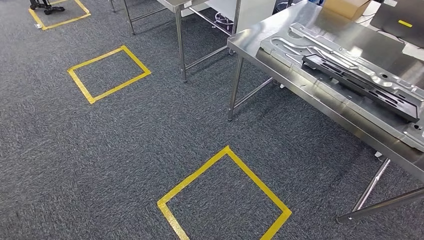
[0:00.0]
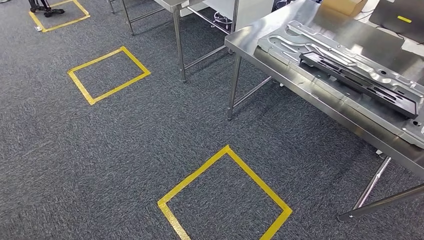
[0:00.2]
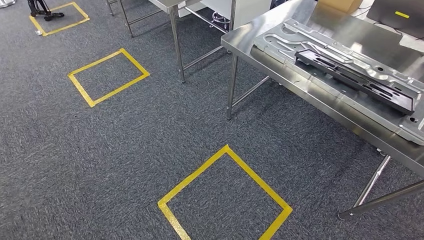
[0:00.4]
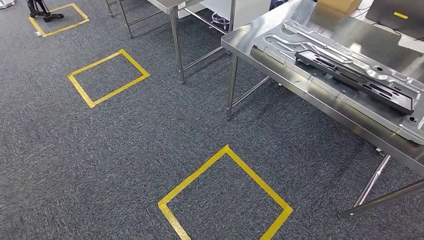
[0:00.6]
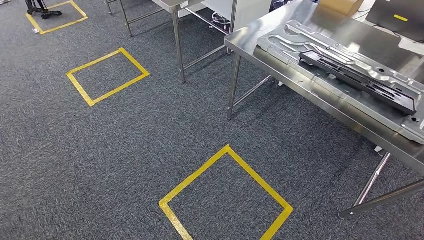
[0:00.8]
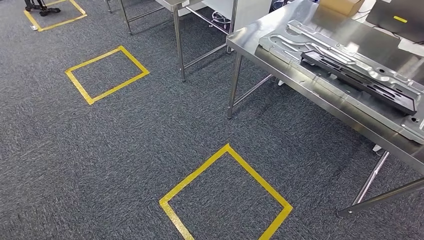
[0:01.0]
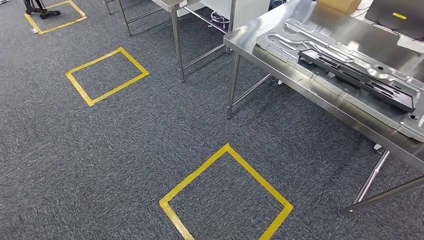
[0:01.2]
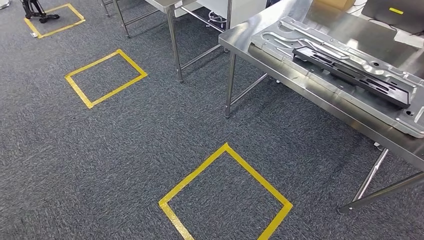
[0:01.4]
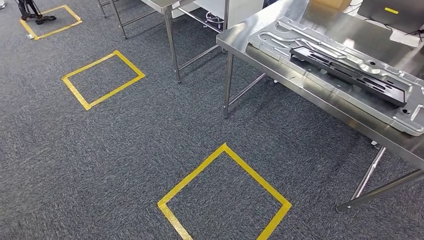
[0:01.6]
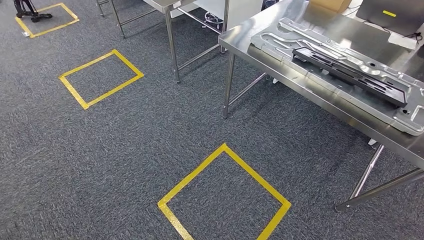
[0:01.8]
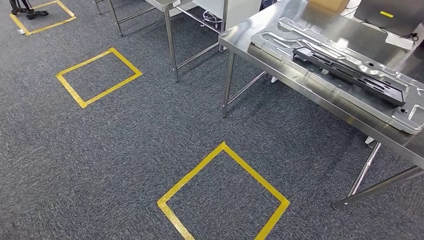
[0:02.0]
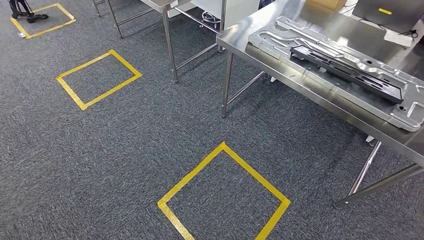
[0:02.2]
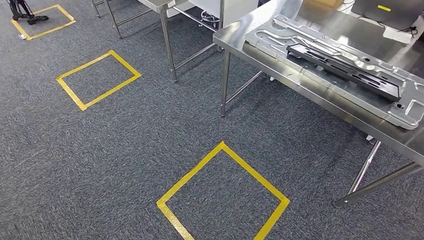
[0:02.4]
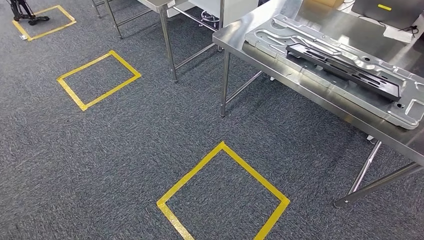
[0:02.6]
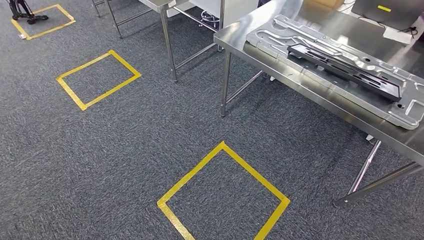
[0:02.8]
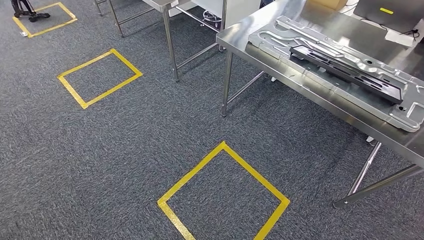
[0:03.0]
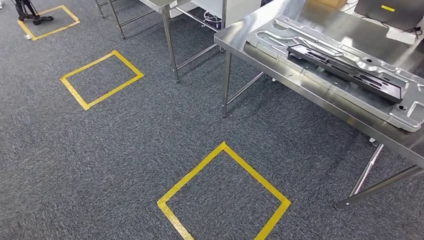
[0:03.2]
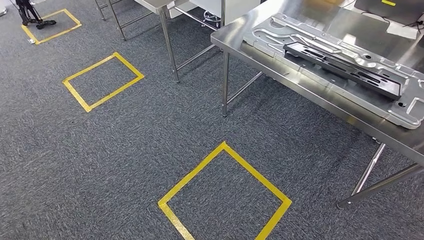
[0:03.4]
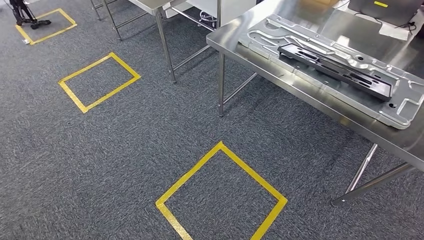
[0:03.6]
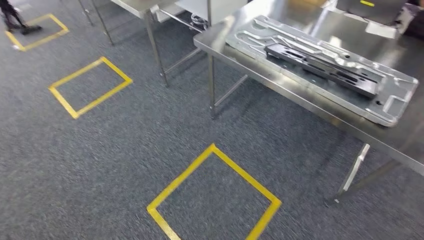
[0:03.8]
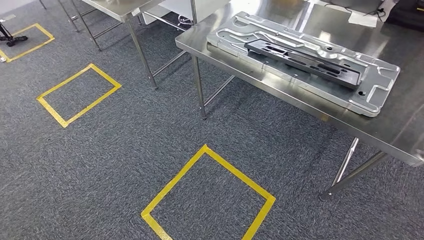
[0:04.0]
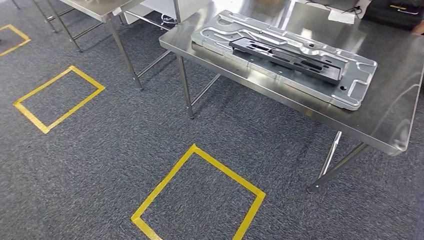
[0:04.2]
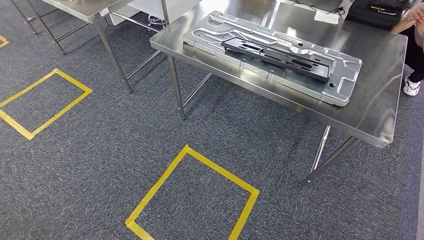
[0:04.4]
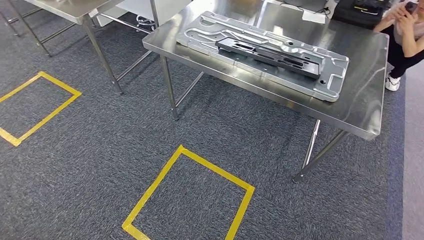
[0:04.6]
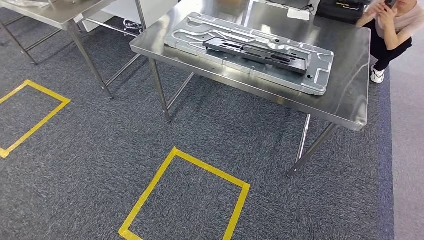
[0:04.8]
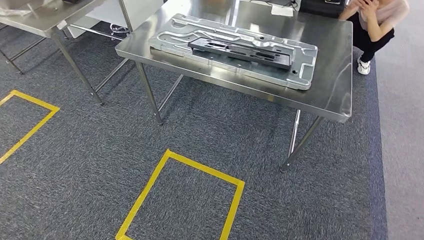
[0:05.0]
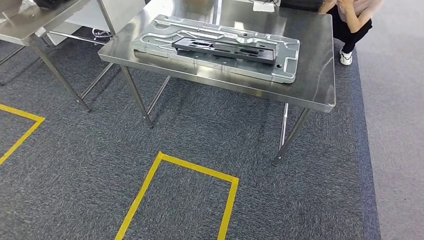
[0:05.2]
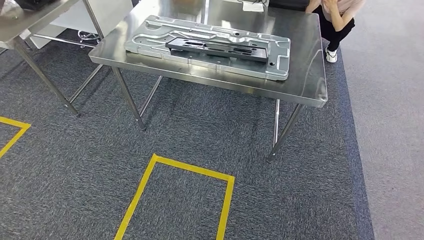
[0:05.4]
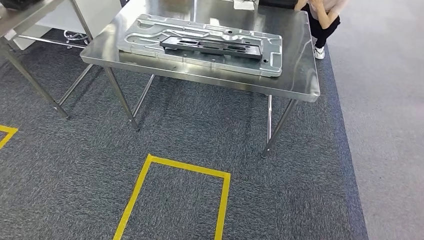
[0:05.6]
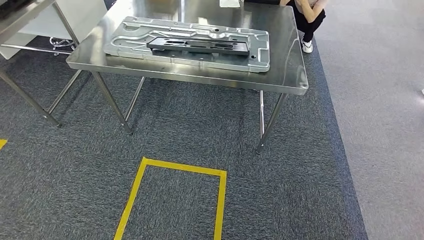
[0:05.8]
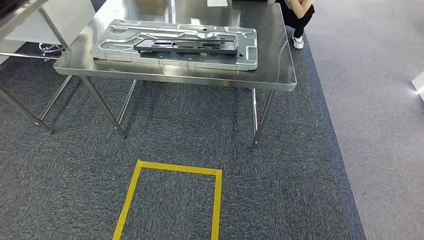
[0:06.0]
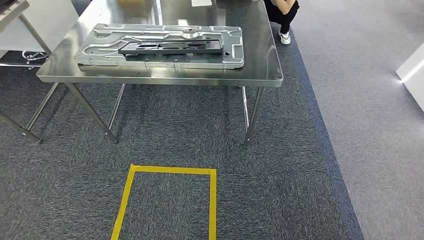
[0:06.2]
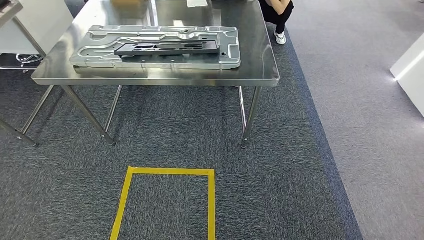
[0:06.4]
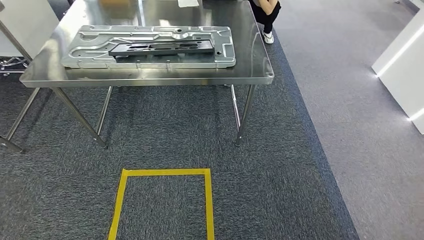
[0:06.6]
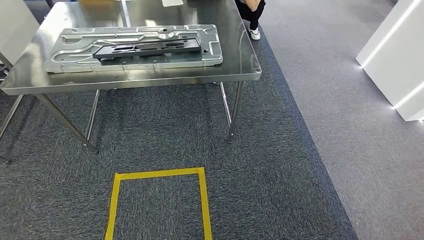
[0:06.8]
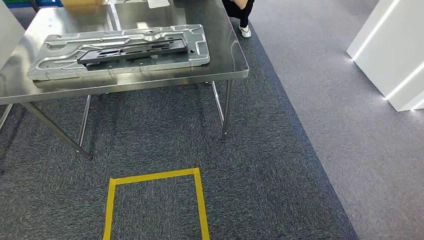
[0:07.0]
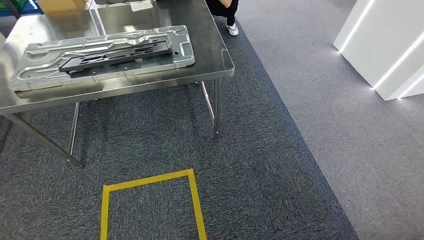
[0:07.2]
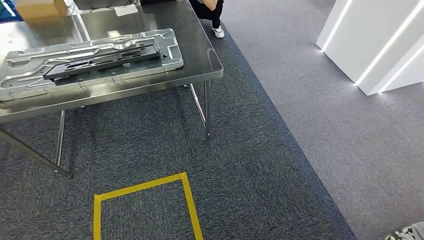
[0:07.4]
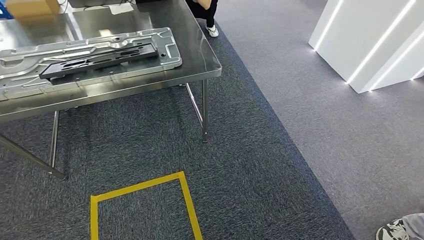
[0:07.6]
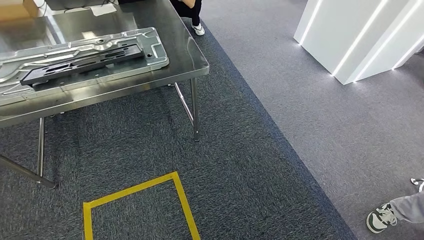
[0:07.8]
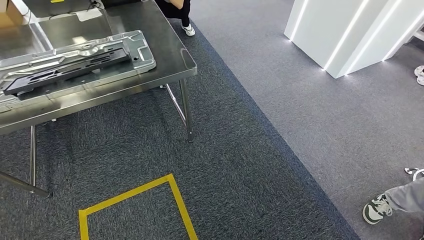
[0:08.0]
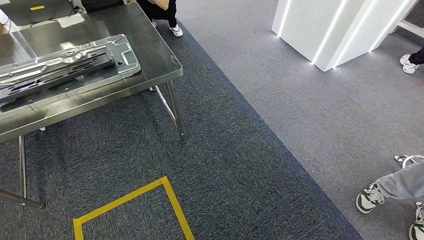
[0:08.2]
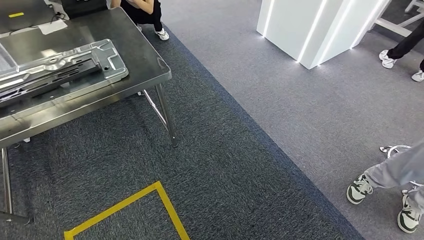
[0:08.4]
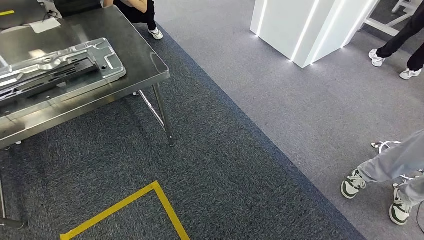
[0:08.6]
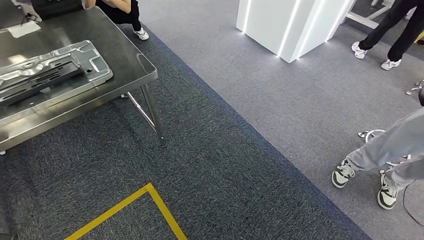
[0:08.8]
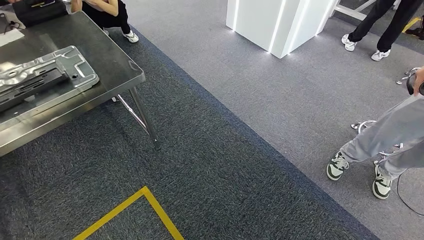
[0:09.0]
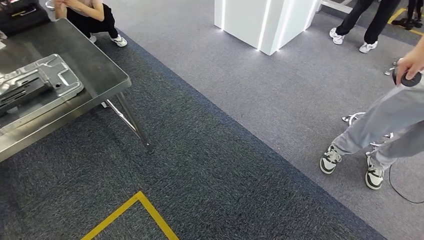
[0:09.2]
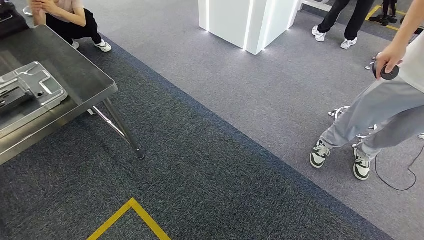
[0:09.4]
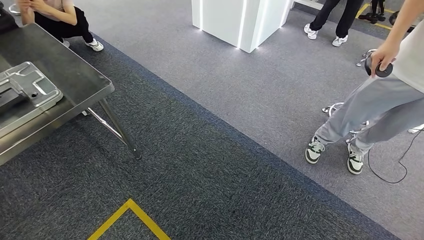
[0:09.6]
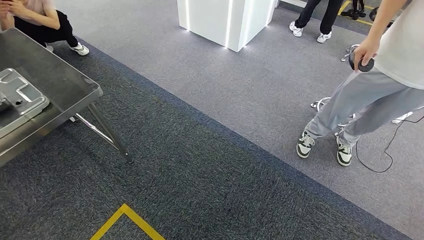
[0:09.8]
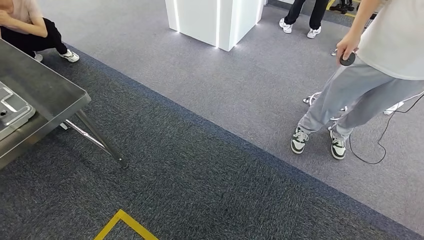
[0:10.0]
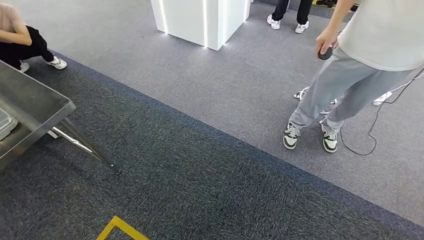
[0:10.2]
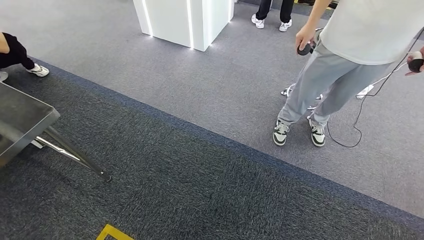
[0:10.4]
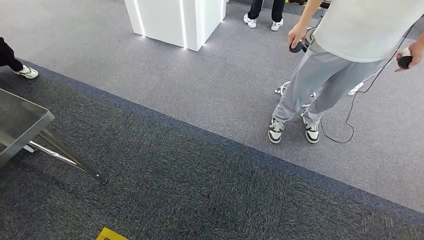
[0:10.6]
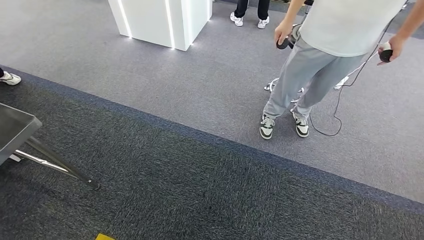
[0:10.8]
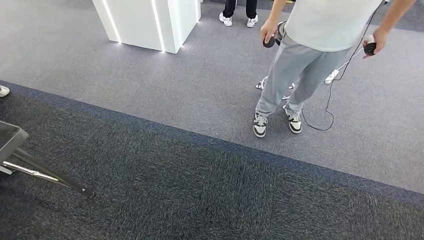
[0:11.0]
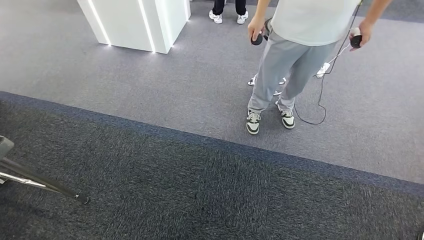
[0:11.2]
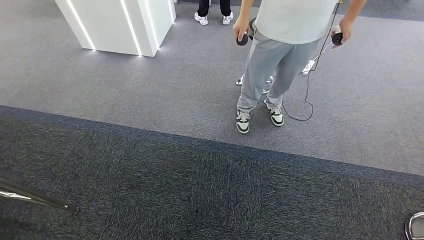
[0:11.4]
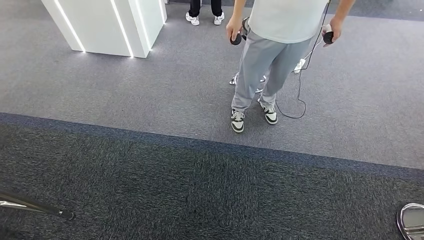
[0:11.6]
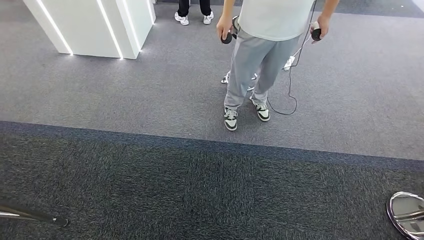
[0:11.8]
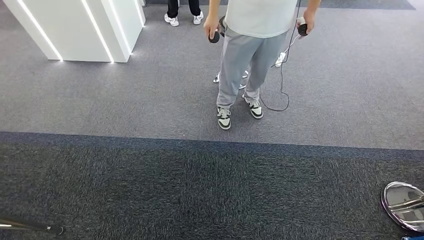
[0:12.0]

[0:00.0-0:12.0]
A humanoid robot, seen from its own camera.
0:01.6 to 0:03.0: Both hands stay put.

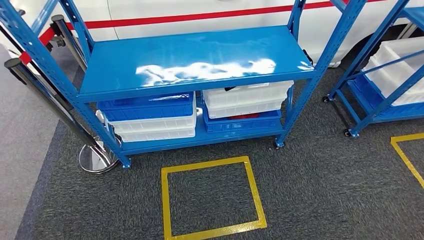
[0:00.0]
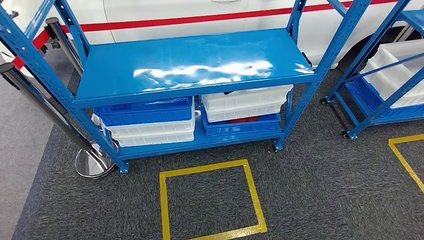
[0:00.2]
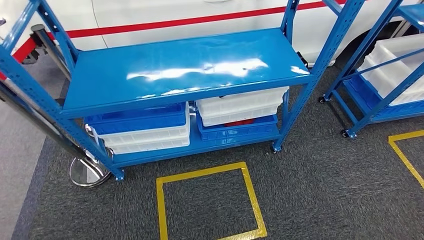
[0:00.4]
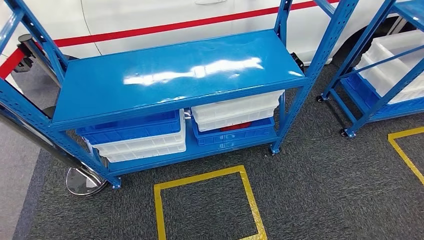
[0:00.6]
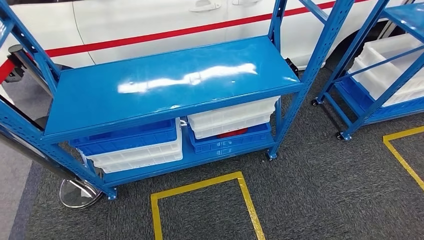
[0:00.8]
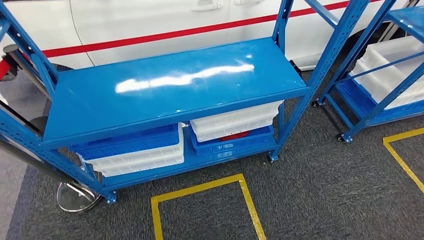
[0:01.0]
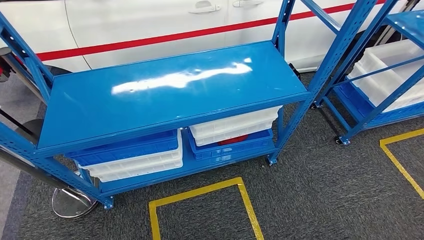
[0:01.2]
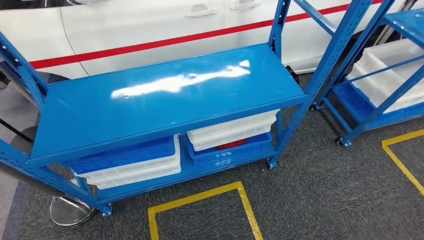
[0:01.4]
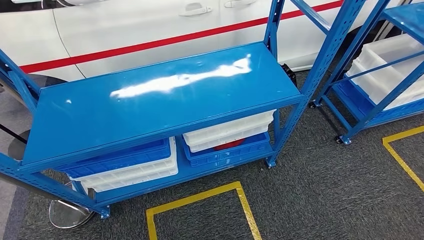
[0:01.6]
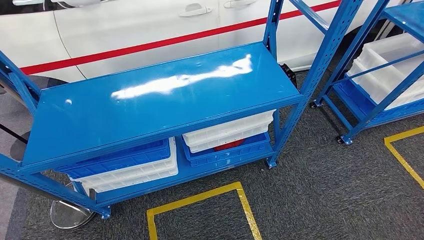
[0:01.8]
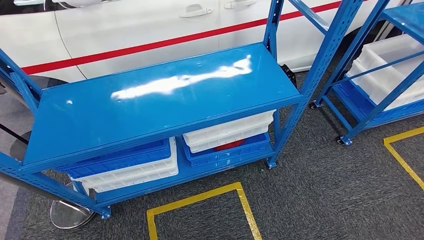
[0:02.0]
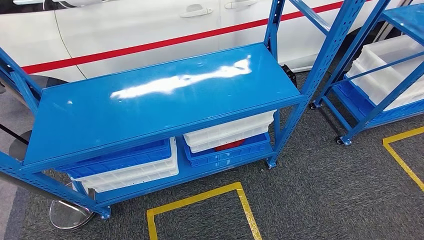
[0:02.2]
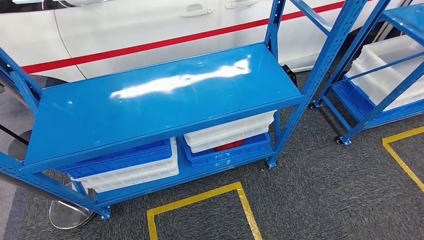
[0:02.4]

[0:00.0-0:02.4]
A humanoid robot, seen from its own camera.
Step, 0:00.0 to 0:02.4: Return to the initial position at the shelf.
